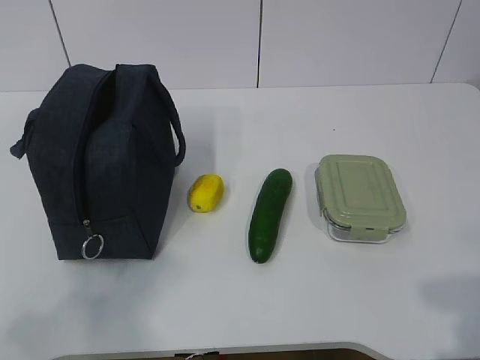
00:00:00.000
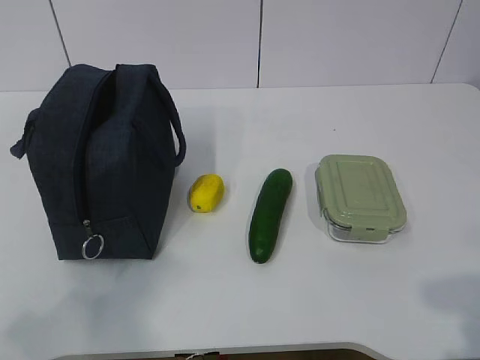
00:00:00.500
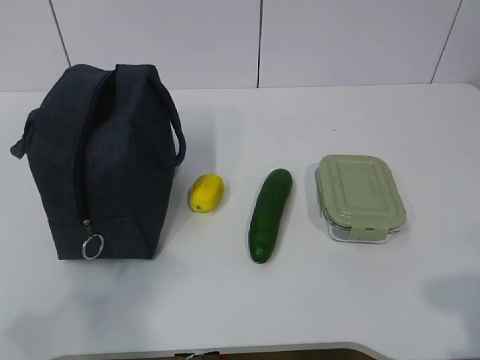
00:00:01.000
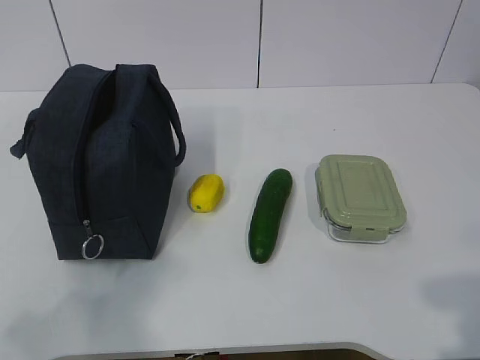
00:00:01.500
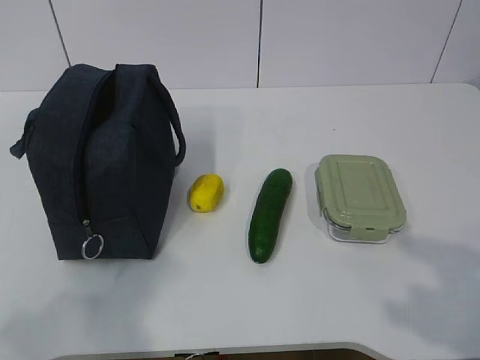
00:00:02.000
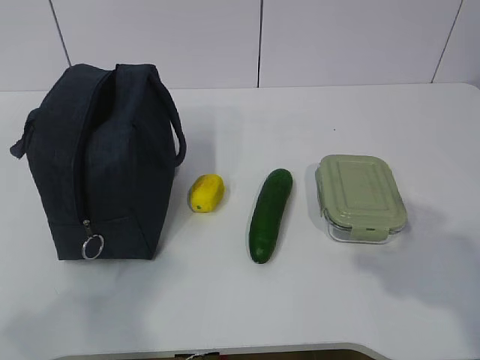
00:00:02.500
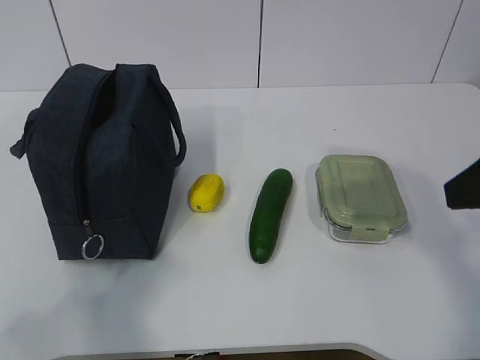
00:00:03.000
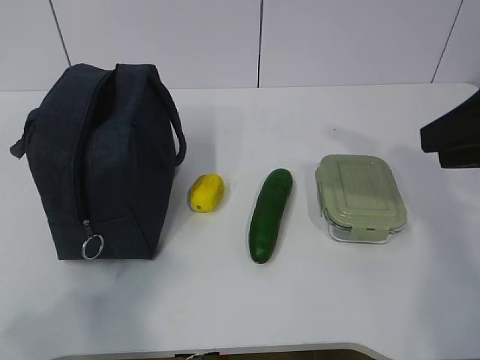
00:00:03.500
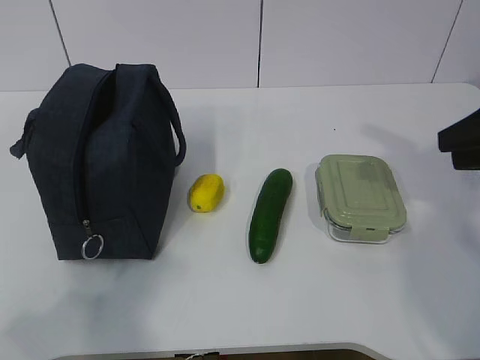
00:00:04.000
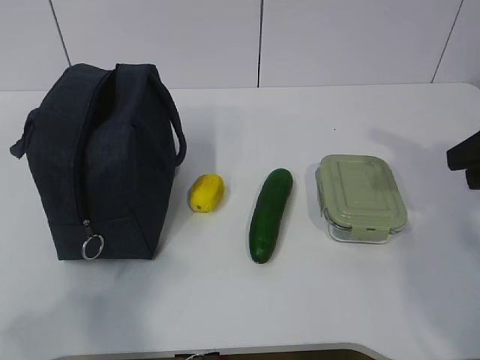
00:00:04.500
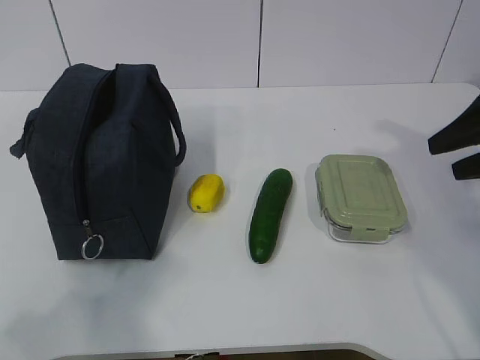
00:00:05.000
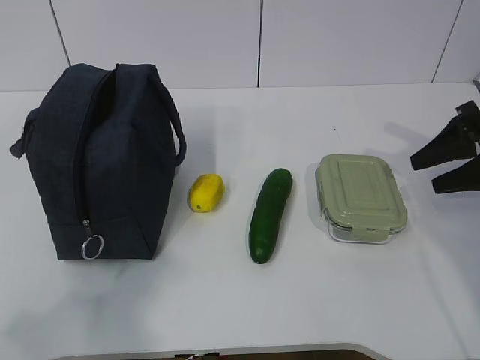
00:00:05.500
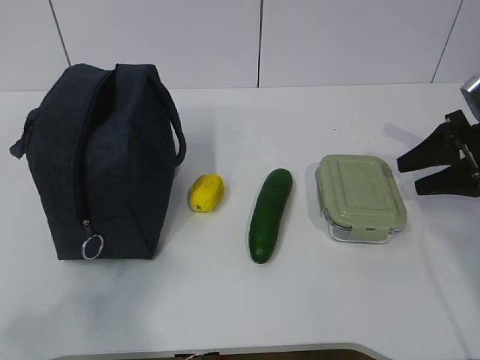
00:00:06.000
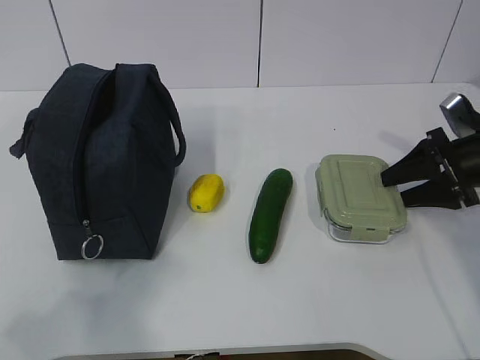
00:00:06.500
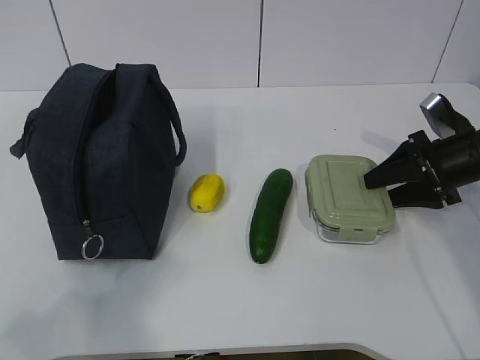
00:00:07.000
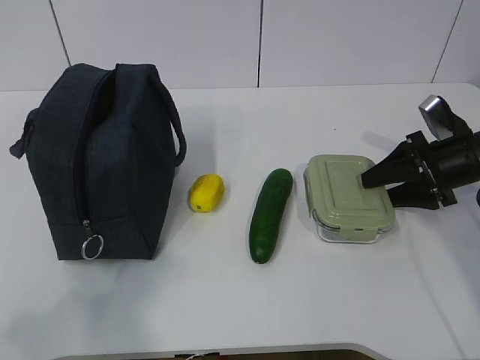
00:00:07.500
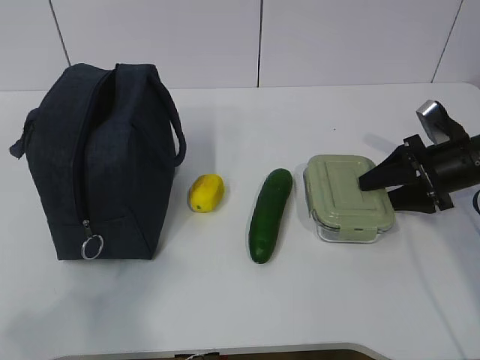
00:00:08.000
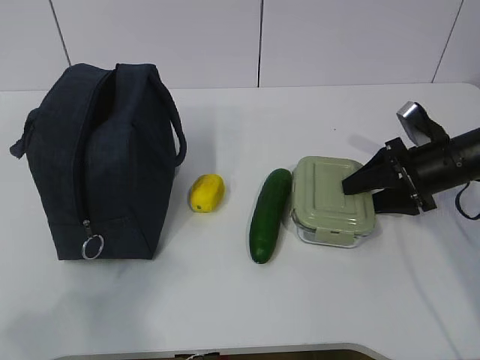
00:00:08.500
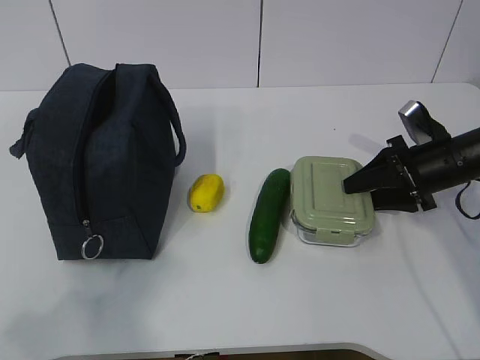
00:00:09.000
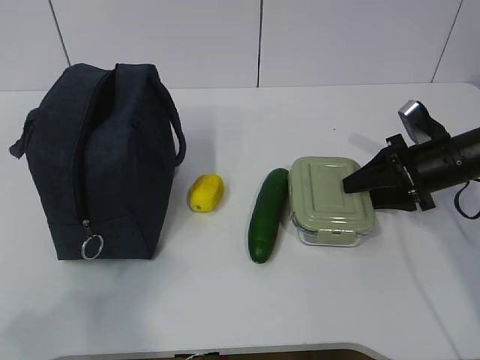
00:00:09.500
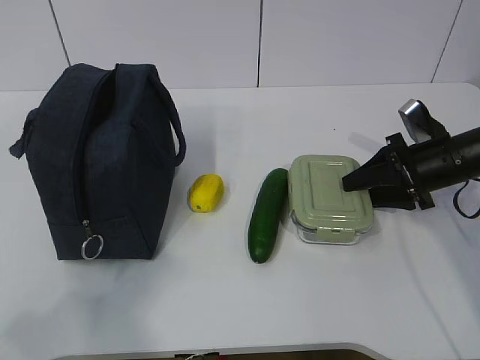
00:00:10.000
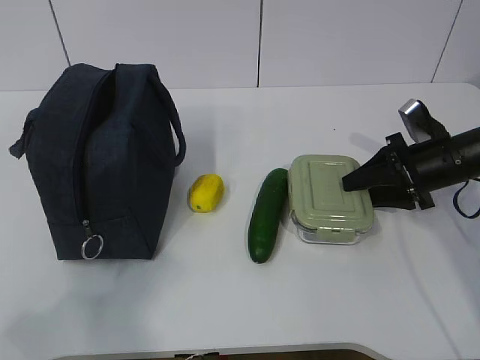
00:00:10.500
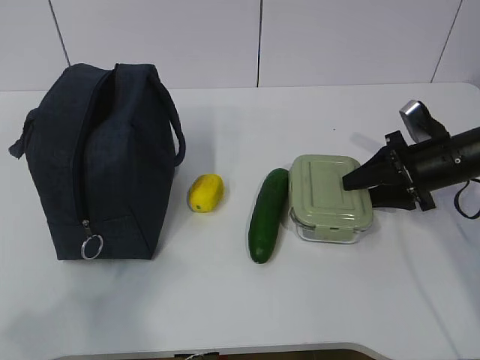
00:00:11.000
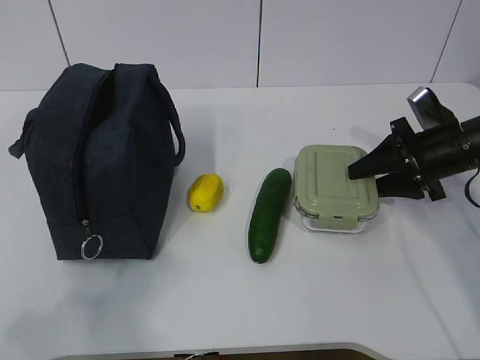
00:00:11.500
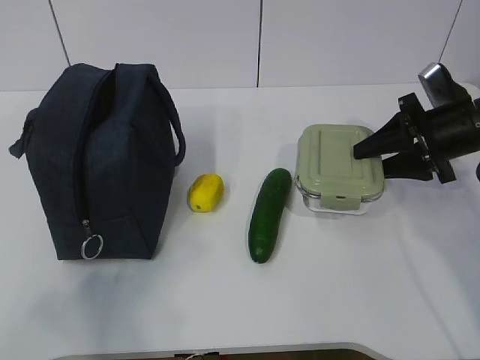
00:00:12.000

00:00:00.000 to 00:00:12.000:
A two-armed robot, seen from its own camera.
Step, 00:00:00.000 to 00:00:08.000: Grab the lunch box with your right hand.
00:00:02.000 to 00:00:04.000: The right gripper is displaced forward by roughly 25 cm.
00:00:04.000 to 00:00:06.000: The right gripper travels downward and forward by some 15 cm, and opens up.
00:00:06.000 to 00:00:08.000: The right gripper shifts by roughly 5 cm.
00:00:08.000 to 00:00:10.000: There are only small adjustments of the grippers.
00:00:10.000 to 00:00:12.000: The right gripper goes about 5 cm upward.

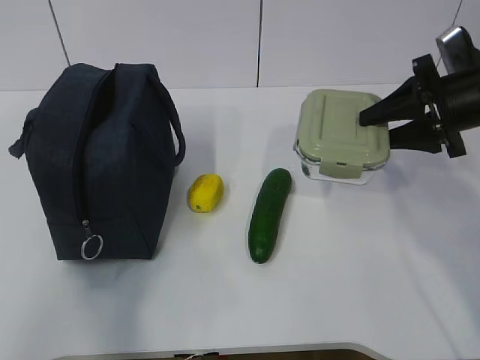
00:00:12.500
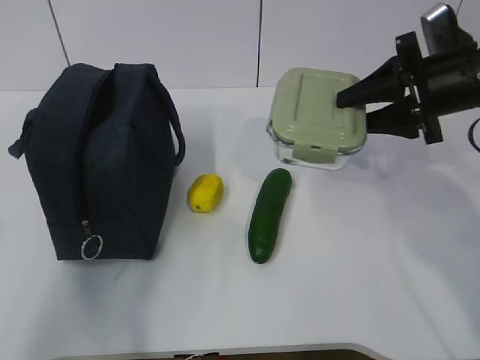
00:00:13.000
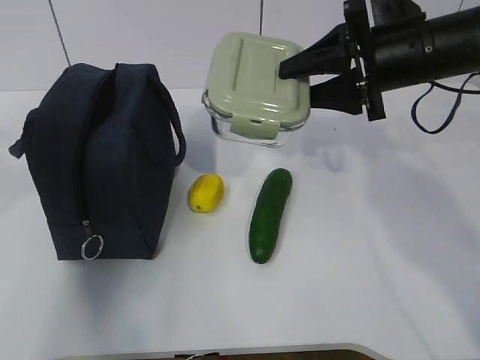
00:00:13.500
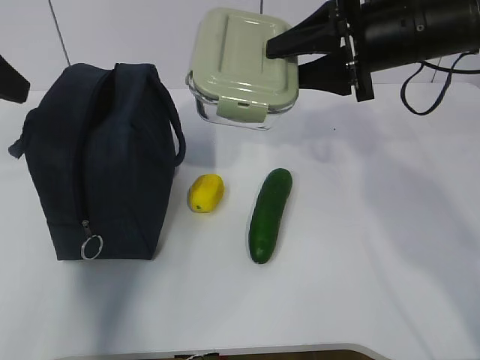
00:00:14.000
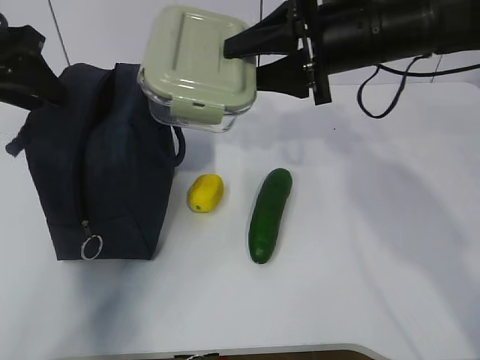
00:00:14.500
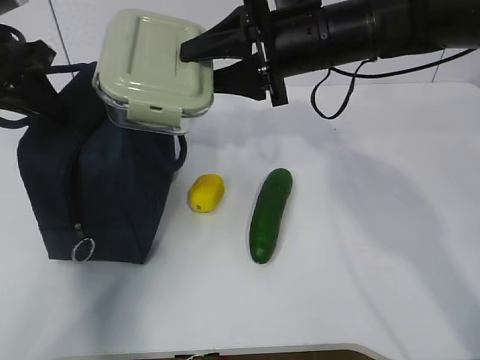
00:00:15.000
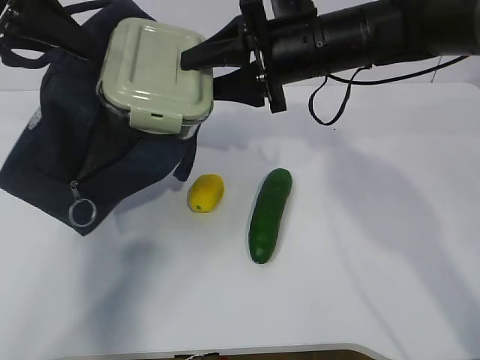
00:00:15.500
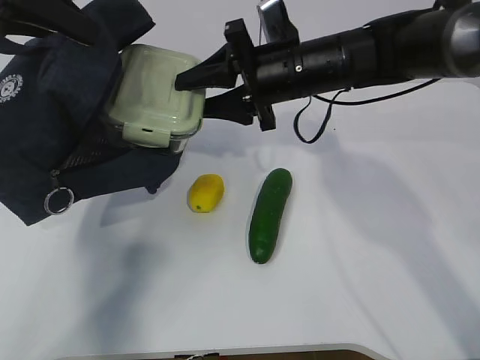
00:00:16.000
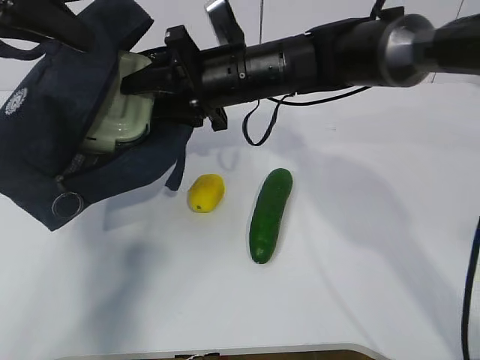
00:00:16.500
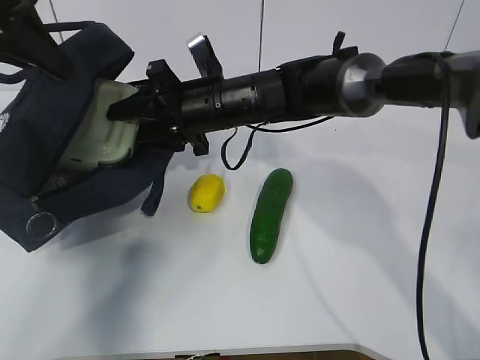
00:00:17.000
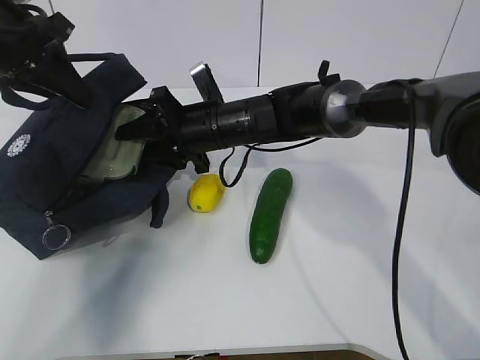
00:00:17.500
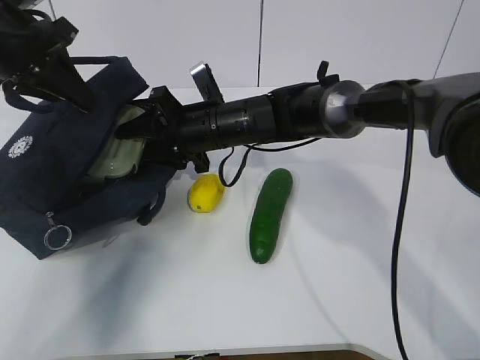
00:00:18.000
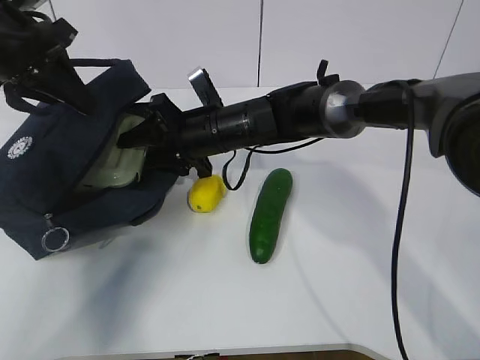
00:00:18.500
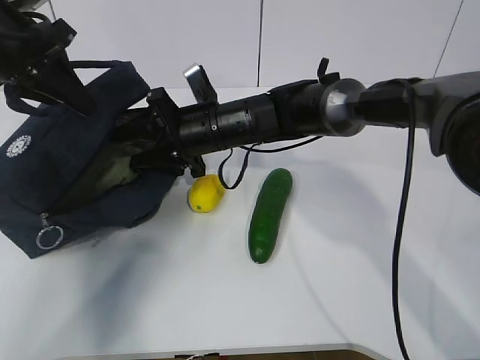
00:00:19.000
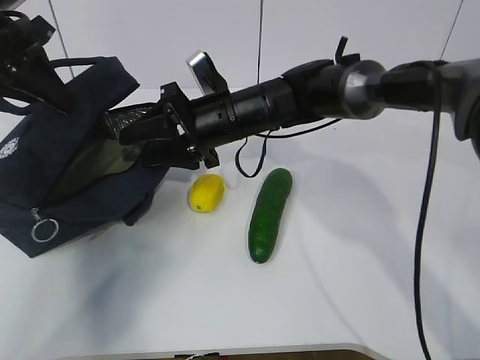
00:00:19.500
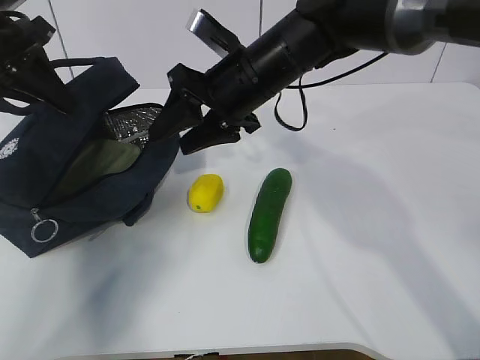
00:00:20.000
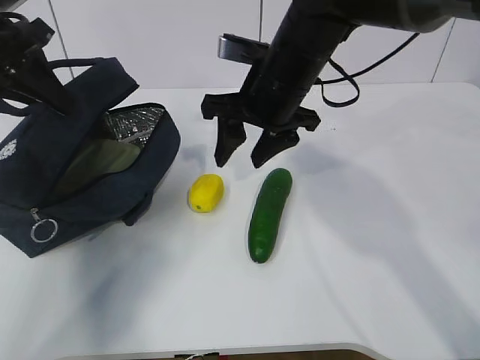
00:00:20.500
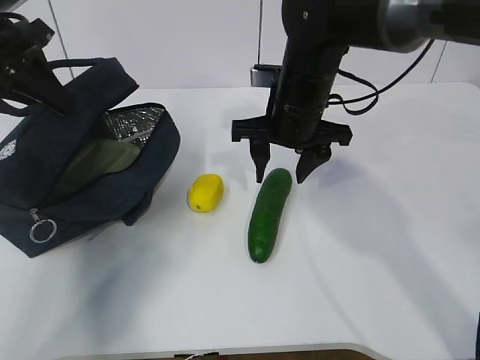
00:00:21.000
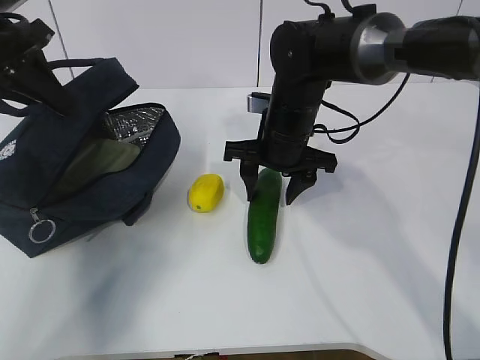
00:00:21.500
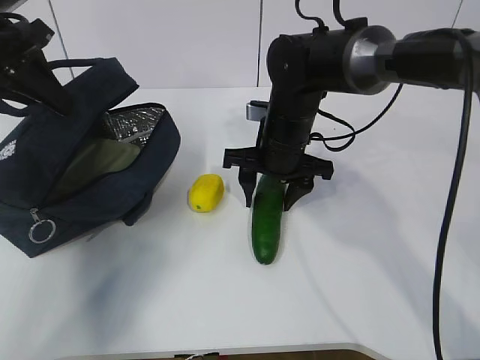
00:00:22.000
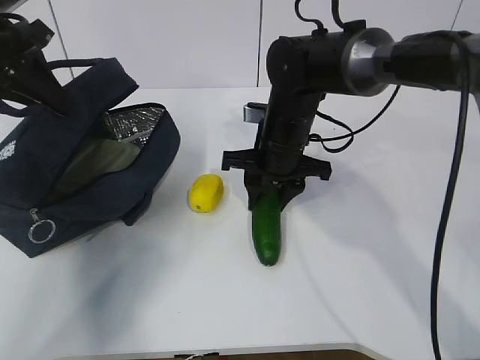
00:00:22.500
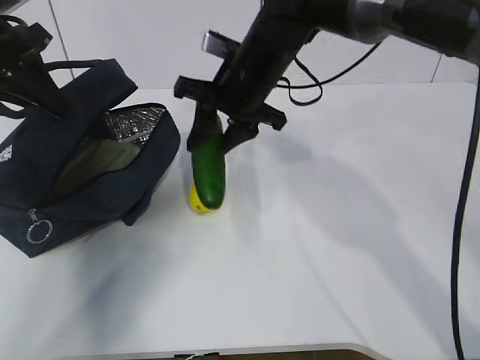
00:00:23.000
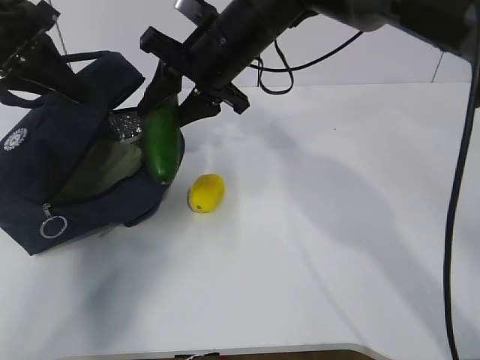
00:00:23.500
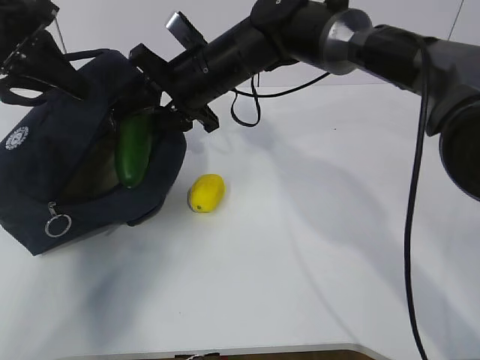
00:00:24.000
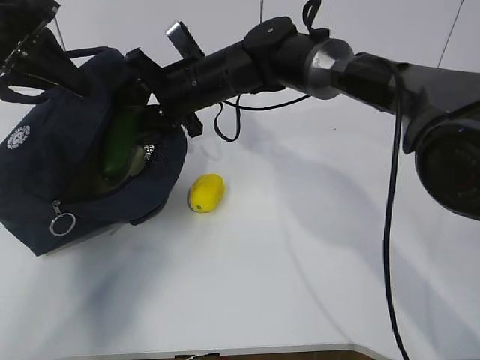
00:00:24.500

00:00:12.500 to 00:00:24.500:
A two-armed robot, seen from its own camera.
Step, 00:00:13.000 to 00:00:16.000: Place it into the bag with your right hand.
Step, 00:00:16.500 to 00:00:18.500: Grab the cucumber with your right hand.
Step, 00:00:19.000 to 00:00:20.500: Place it into the bag with your right hand.
Step, 00:00:21.000 to 00:00:23.000: Grab the lemon with your right hand.
00:00:12.500 to 00:00:14.500: The right gripper goes some 15 cm to the left and upward; the left gripper is displaced forward by some 30 cm.
00:00:14.500 to 00:00:16.500: The right gripper moves to the left and downward, approximately 10 cm. The left gripper goes some 5 cm upward, and closes up.
00:00:16.500 to 00:00:18.500: Both grippers travel together downward, some 10 cm.
00:00:18.500 to 00:00:20.500: The right gripper is displaced upward and to the right by approximately 10 cm.
00:00:20.500 to 00:00:22.500: The right gripper travels downward by approximately 10 cm.
00:00:22.500 to 00:00:24.500: The right gripper shifts roughly 10 cm to the left.

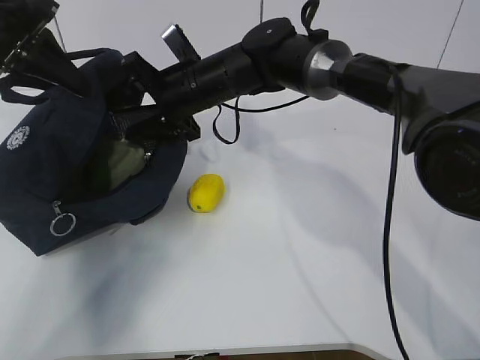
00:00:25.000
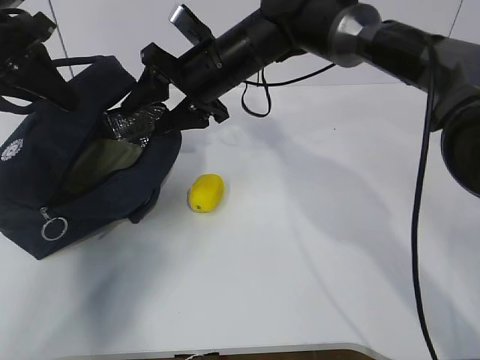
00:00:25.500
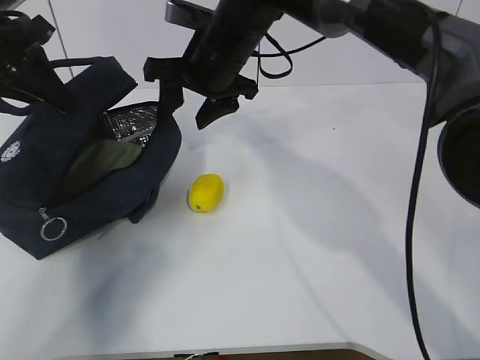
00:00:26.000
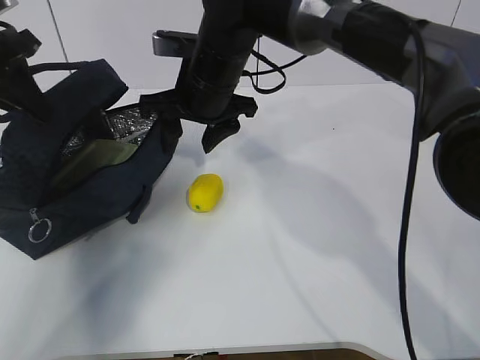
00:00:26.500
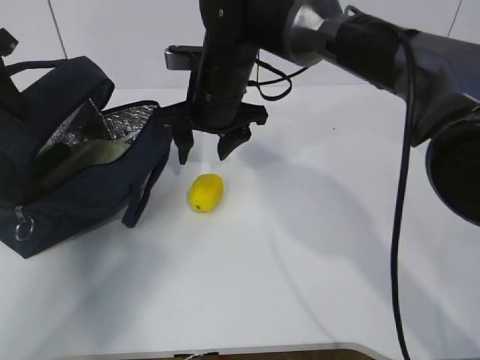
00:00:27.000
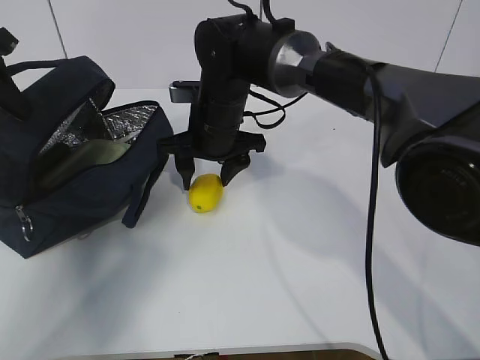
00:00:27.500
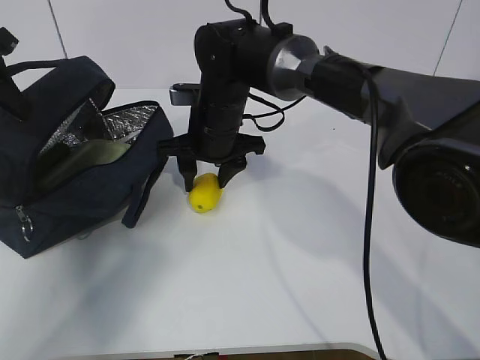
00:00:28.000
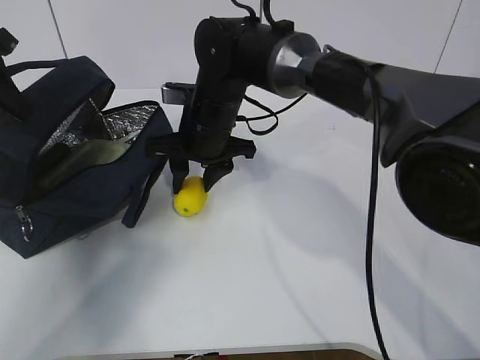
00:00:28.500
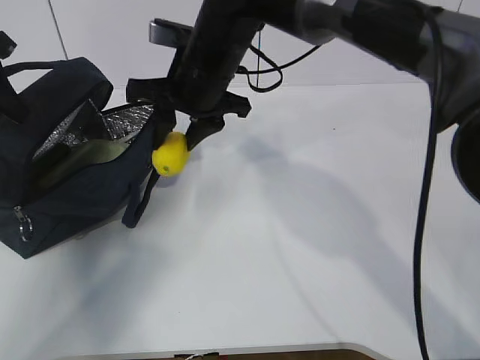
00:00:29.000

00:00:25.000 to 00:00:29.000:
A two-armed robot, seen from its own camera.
Step, 00:00:26.000 to 00:00:27.500: Grab the lunch bag with your right hand.
00:00:25.000 to 00:00:27.000: The left gripper heads to the left, covering roughly 5 cm.
00:00:27.000 to 00:00:29.000: The right gripper reaches about 5 cm downward, then returns.
